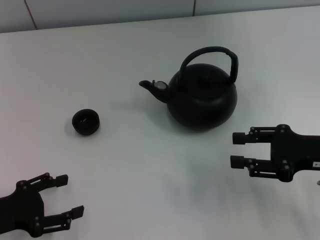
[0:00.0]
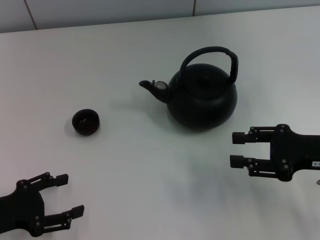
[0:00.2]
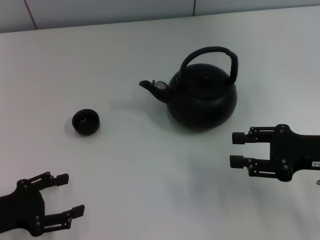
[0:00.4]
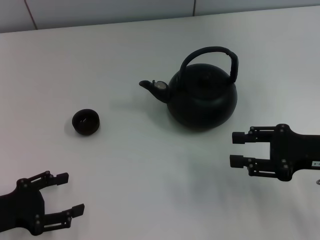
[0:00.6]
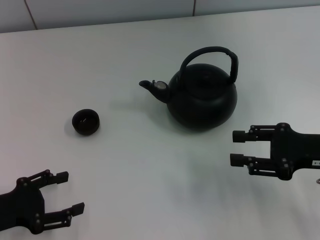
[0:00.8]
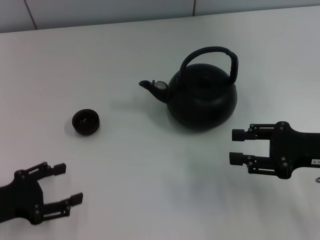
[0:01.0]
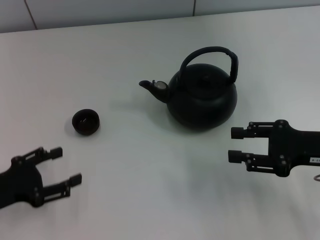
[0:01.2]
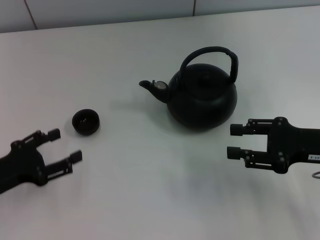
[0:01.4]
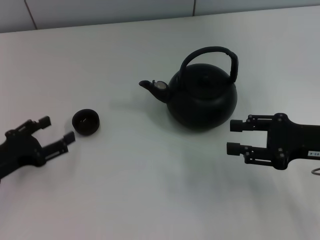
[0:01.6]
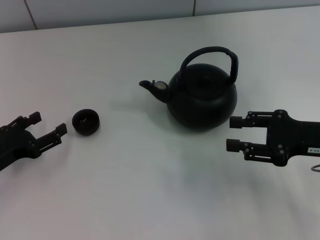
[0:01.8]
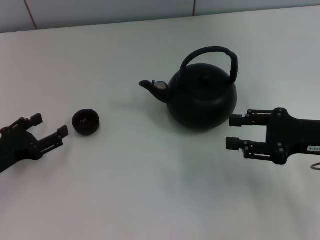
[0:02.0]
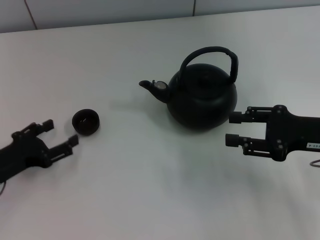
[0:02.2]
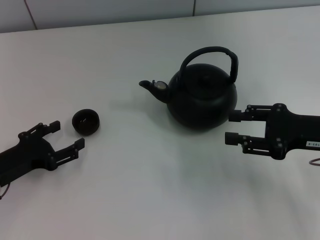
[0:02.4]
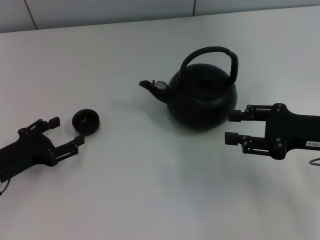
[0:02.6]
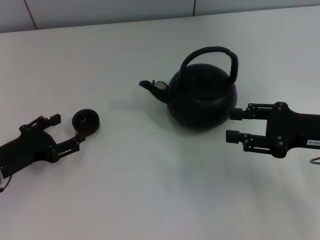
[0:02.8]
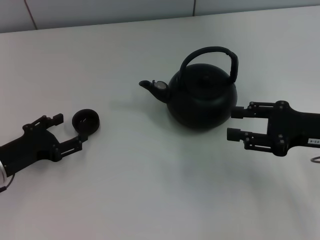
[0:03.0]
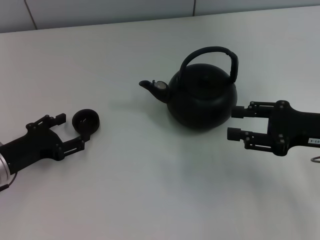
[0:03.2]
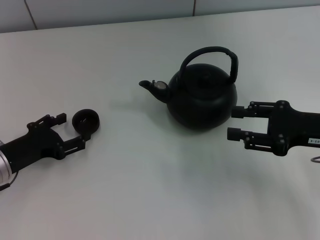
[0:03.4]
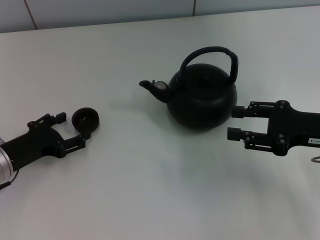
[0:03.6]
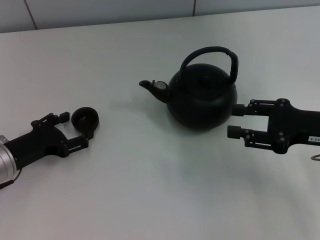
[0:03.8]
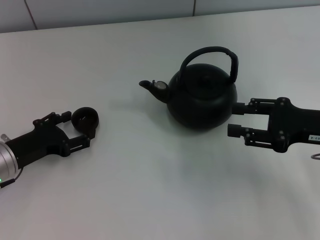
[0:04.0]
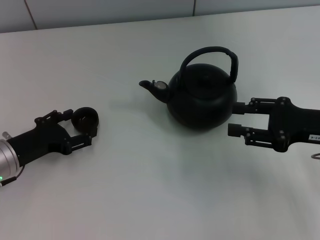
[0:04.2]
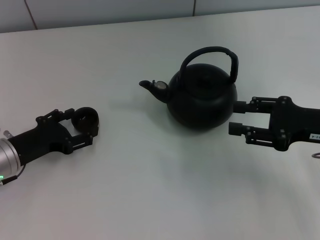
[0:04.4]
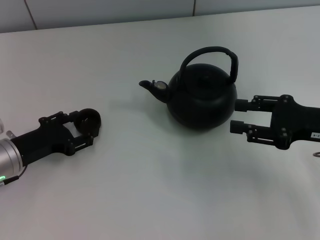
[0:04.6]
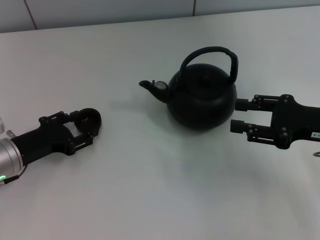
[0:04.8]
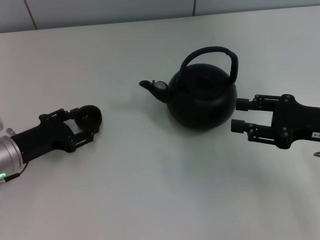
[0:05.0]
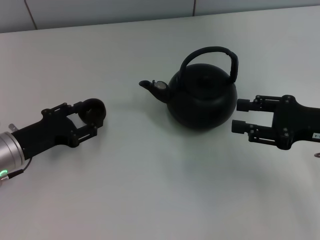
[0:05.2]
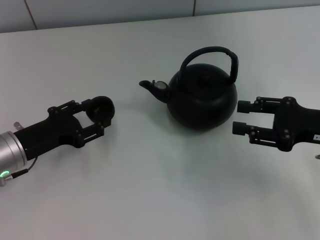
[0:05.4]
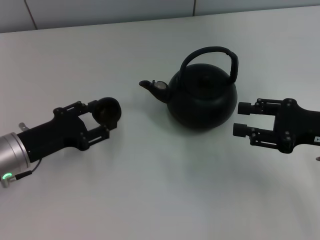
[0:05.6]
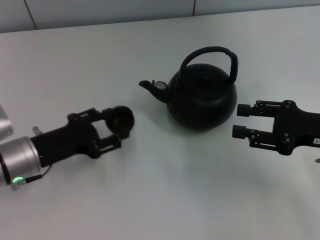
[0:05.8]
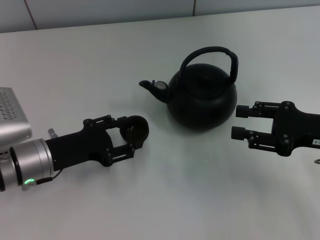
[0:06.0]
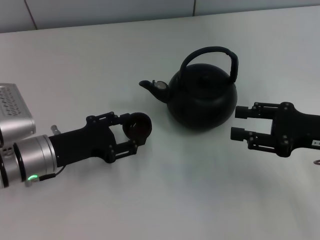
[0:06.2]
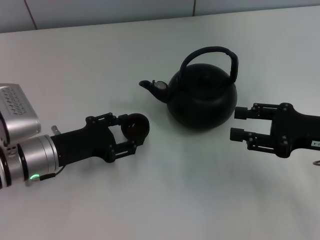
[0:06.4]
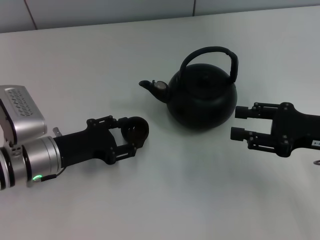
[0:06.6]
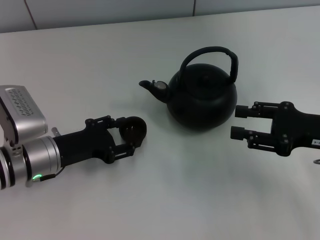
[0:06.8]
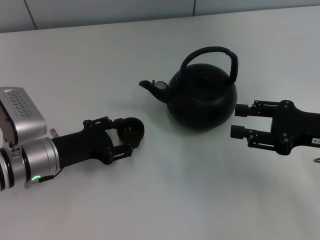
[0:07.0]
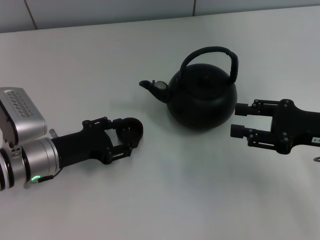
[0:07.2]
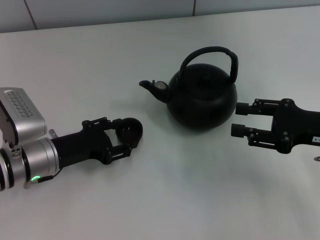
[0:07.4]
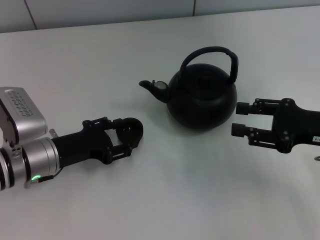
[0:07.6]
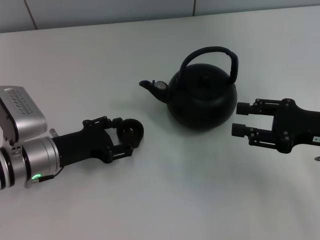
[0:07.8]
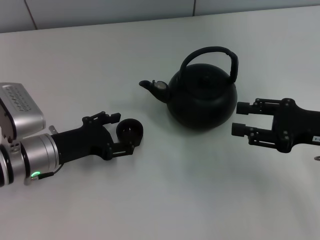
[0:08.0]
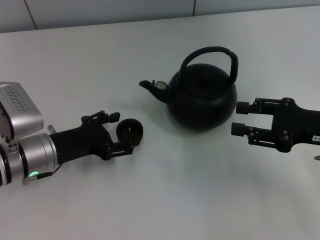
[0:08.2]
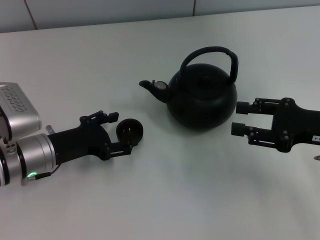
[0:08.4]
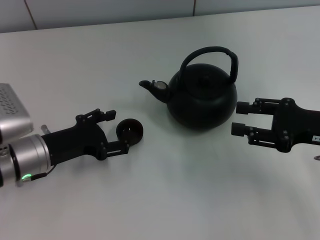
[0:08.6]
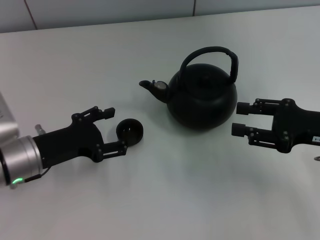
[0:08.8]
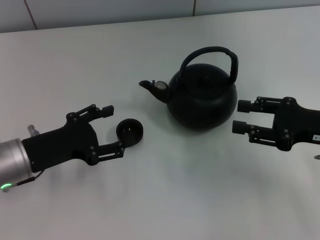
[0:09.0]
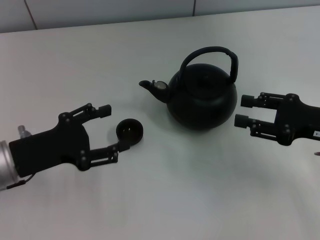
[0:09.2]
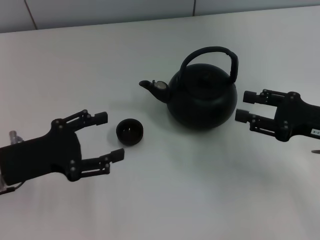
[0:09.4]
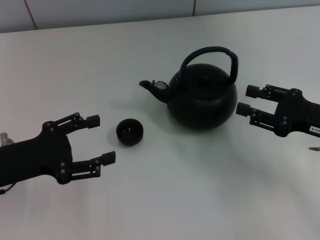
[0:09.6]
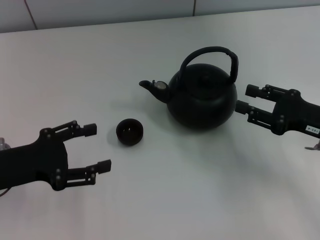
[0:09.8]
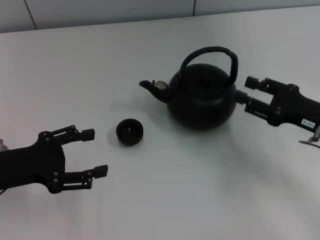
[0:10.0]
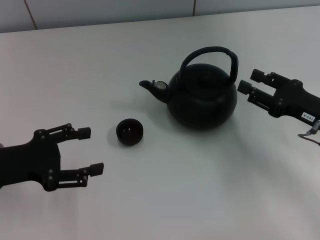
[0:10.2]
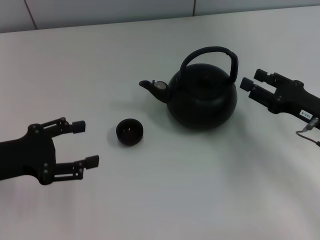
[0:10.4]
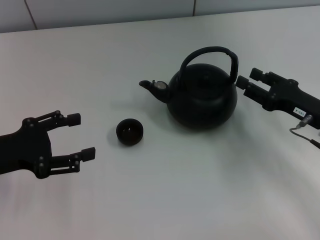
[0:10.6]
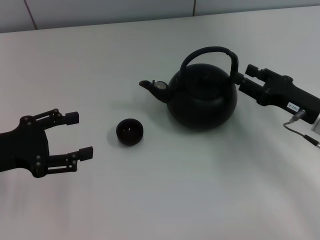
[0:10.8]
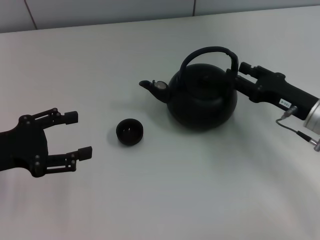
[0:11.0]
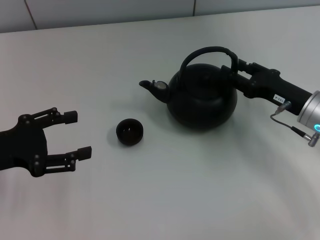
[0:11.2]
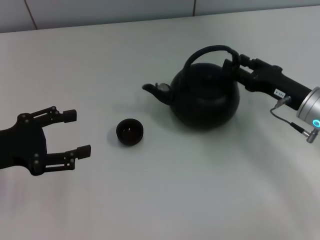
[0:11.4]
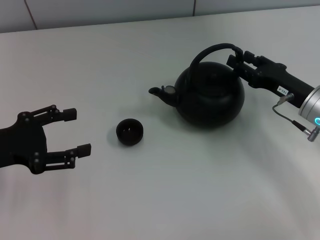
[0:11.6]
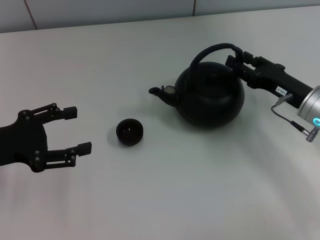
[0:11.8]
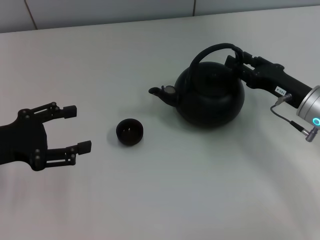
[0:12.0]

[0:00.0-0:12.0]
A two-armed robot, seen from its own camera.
Task of the whole recording: Grasp the handle of the teapot with one hand and pour tea into the teacup.
Step, 0:00.0 to 0:05.2: Pick up the teacup with the left gripper.
Step, 0:05.4 to 0:10.0: Place the teacup in the center of view with the left gripper.
0:00.0 to 0:01.6: There are only small adjustments of the grippers.
0:01.6 to 0:03.0: The grippers make only small movements.
0:03.0 to 0:04.4: There are only small adjustments of the grippers.
0:04.4 to 0:06.0: The left gripper heads to the right, covering about 5 cm, and closes.
0:06.0 to 0:07.6: There are only small adjustments of the grippers.
0:07.6 to 0:09.0: The left gripper moves some 5 cm, and opens up.
0:09.0 to 0:10.4: The right gripper ends up about 5 cm from where it was, while the left gripper goes some 5 cm to the left.
0:10.4 to 0:12.0: The right gripper ends up approximately 5 cm from where it was.

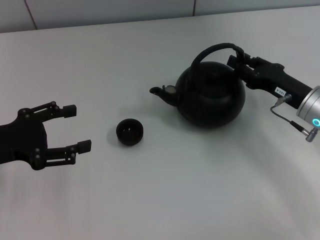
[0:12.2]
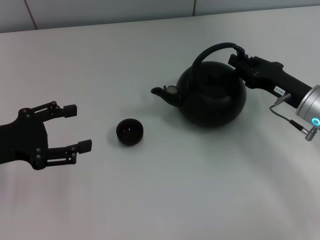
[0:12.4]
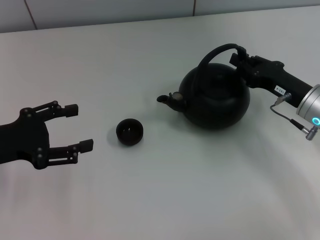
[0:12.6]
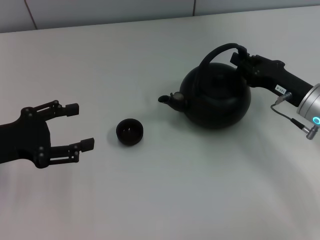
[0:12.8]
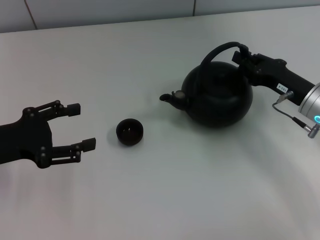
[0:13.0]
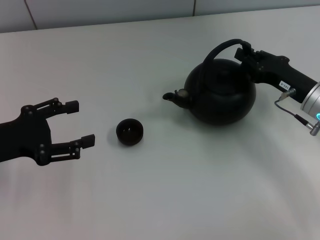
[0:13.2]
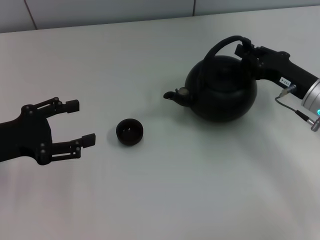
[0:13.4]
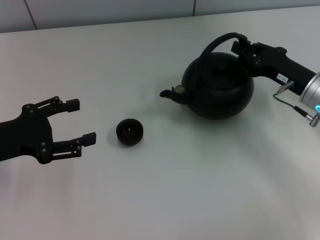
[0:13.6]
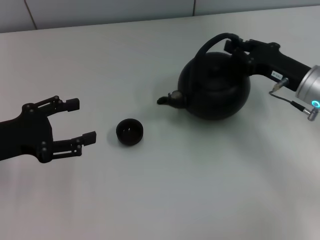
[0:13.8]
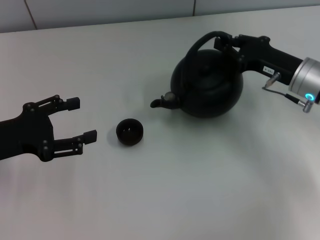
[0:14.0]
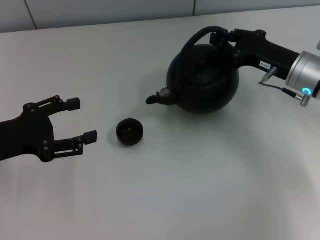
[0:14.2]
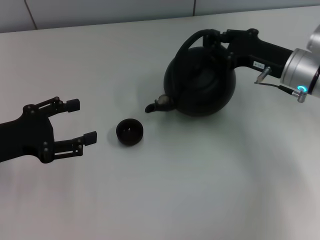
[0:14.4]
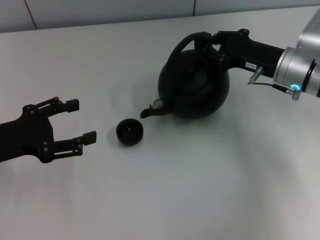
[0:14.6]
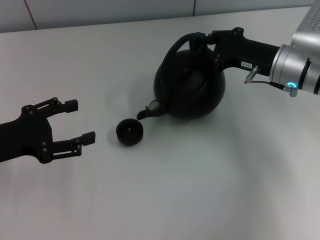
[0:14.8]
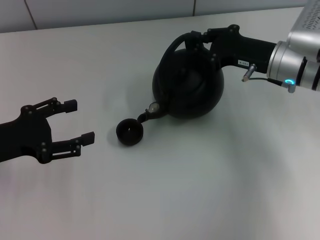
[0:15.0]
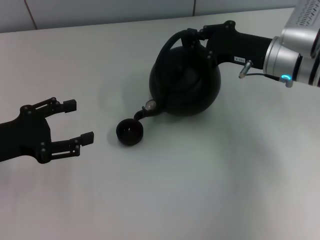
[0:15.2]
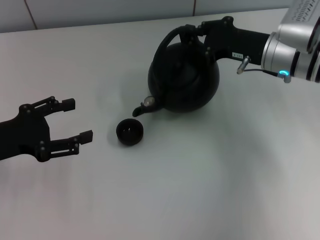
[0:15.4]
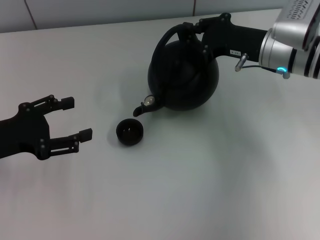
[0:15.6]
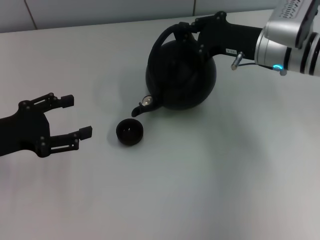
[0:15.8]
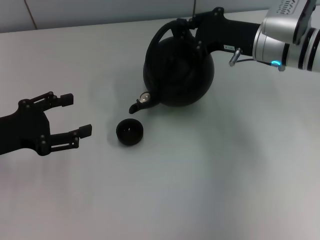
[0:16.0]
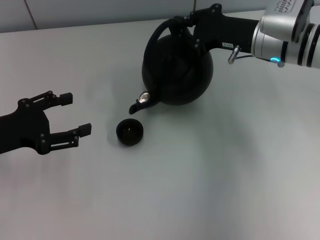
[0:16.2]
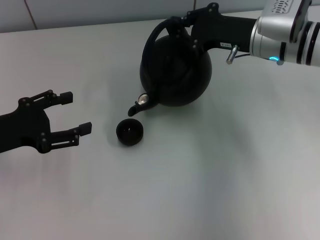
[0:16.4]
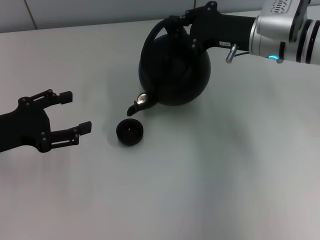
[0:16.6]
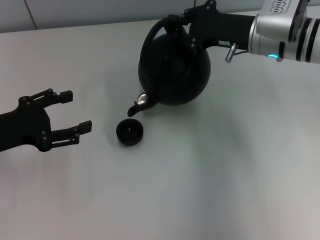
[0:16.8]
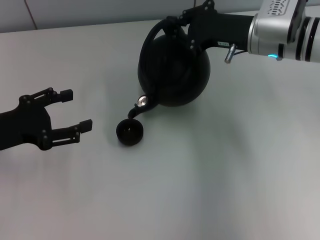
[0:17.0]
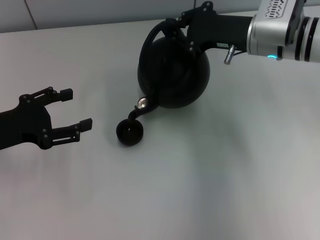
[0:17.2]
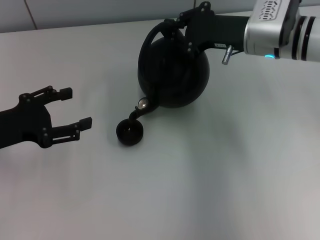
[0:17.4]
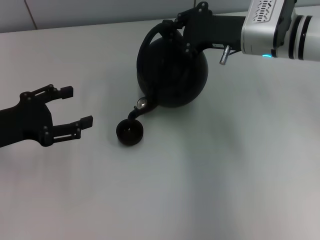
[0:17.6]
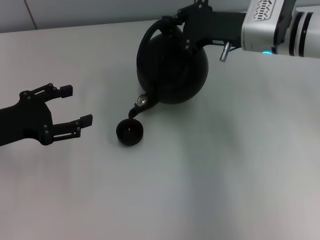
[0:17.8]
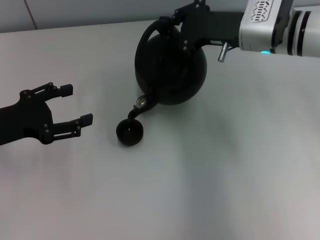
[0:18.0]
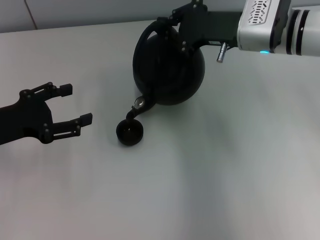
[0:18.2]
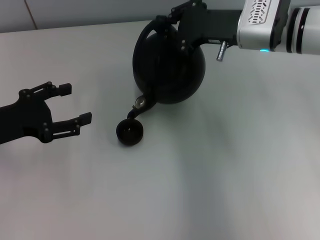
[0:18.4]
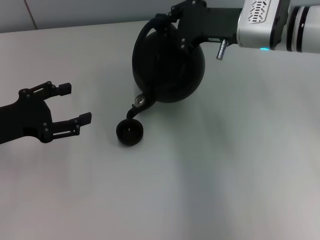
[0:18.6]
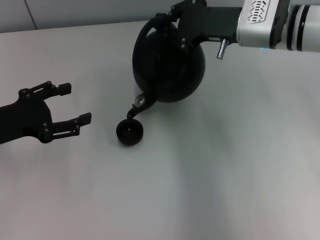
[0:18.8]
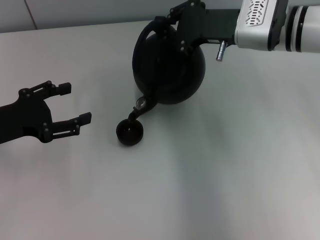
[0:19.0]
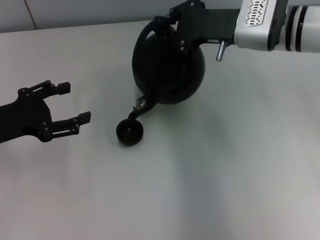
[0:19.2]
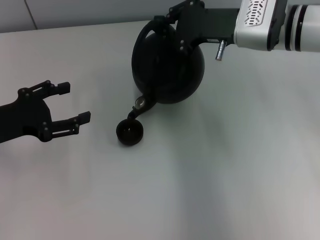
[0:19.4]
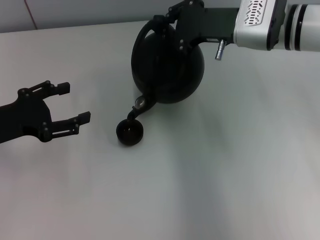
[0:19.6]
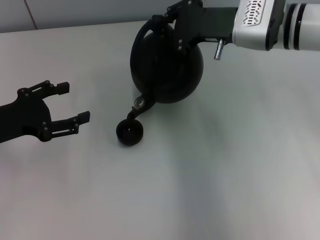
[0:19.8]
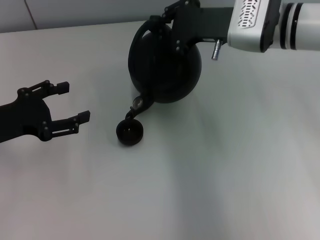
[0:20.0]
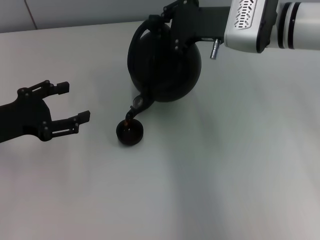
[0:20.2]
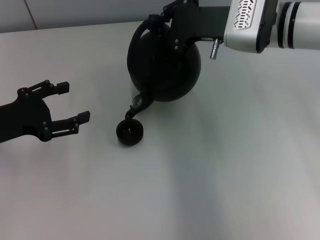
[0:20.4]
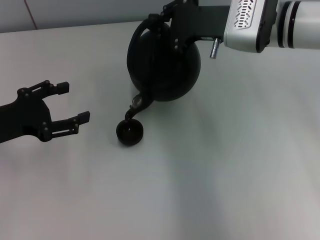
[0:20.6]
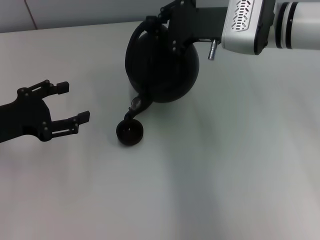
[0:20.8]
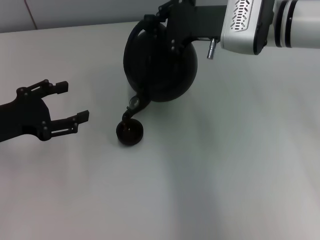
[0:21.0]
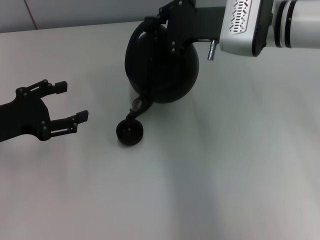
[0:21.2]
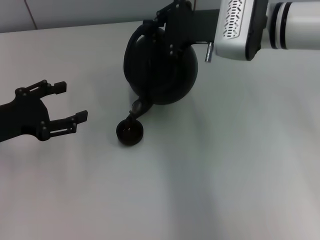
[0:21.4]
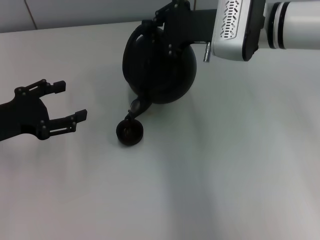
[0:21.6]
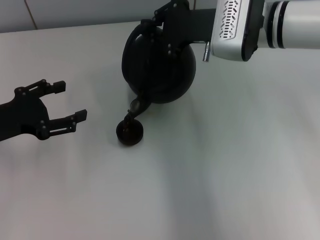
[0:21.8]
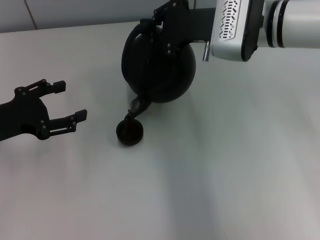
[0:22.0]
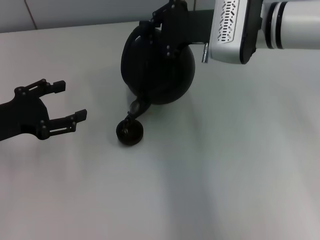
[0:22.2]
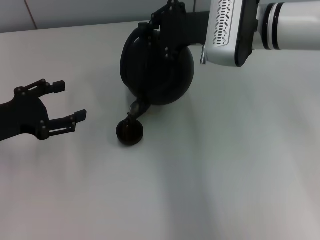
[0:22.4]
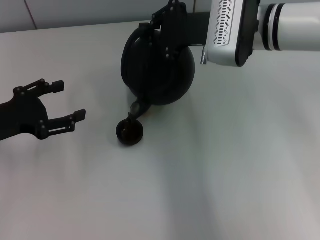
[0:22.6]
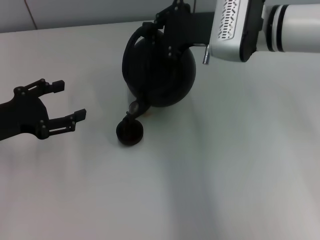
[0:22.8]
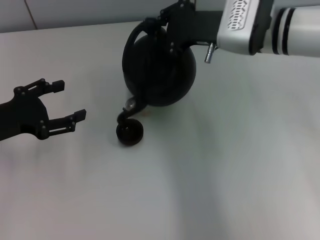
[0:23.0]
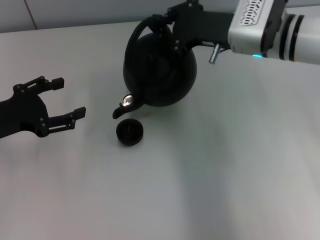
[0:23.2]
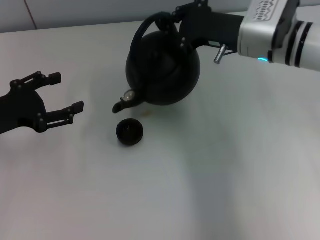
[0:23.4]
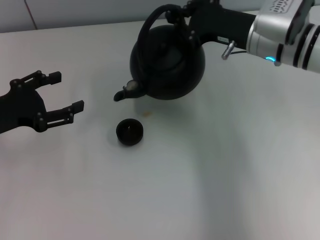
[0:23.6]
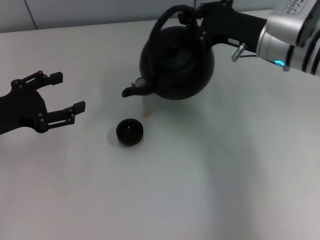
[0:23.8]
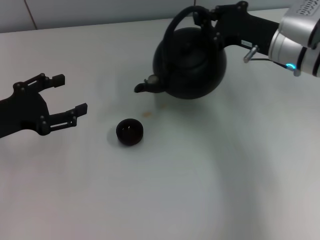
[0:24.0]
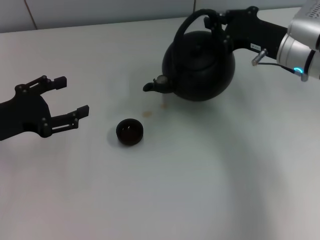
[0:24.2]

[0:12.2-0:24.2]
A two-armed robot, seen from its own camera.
Task of the whole recording: Grasp the handle of the teapot with one hand and pour tea into the teacup.
0:12.2 to 0:13.8: The right gripper closes.
0:13.8 to 0:15.2: The right gripper changes place by about 5 cm.
0:15.2 to 0:16.6: The grippers stay close to where they were, moving slightly.
0:16.6 to 0:18.2: The grippers make only small movements.
0:18.2 to 0:19.8: The two grippers keep their place.
0:19.8 to 0:22.6: The grippers stay close to where they were, moving slightly.
0:22.6 to 0:24.2: The right gripper travels to the right by approximately 10 cm.
